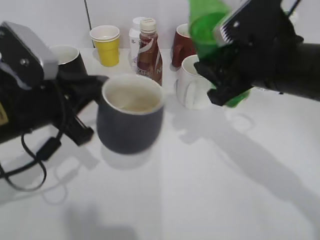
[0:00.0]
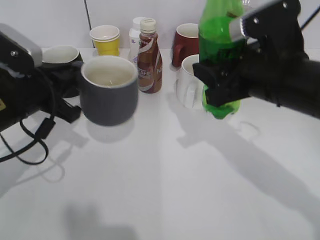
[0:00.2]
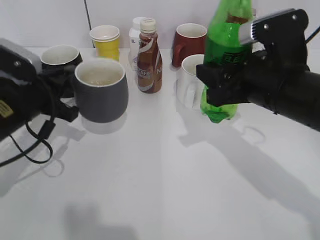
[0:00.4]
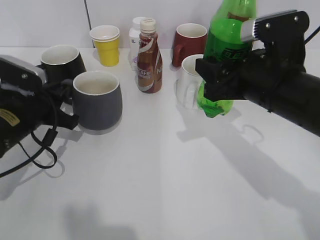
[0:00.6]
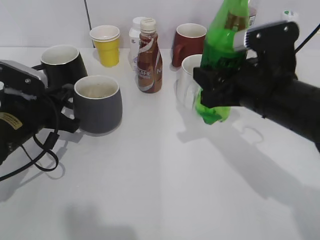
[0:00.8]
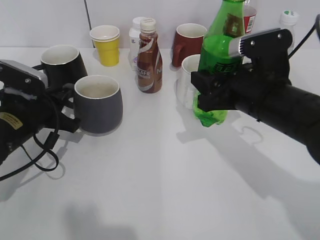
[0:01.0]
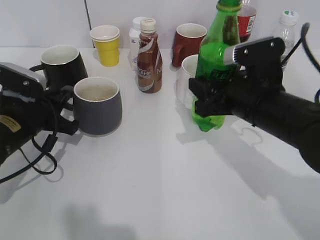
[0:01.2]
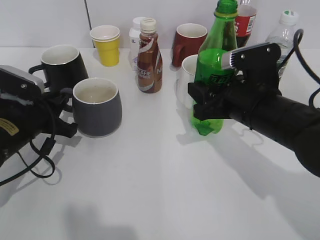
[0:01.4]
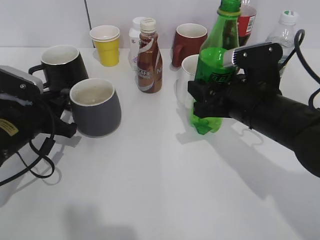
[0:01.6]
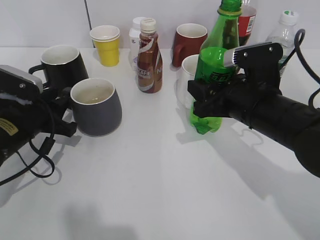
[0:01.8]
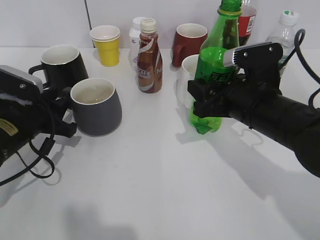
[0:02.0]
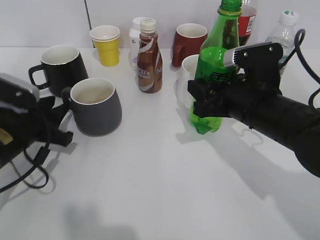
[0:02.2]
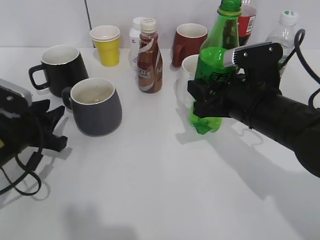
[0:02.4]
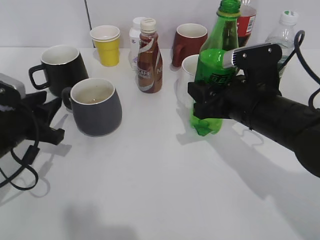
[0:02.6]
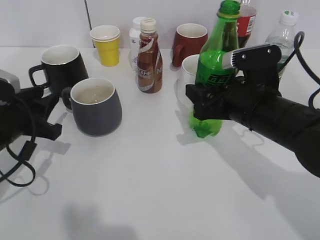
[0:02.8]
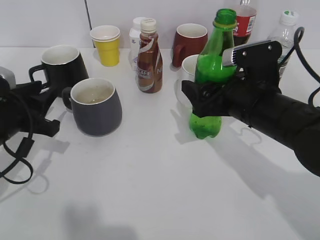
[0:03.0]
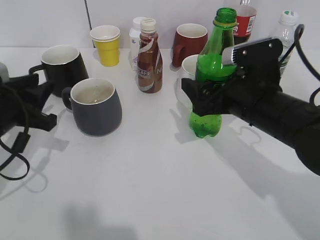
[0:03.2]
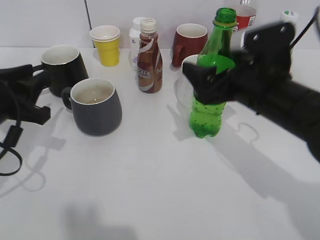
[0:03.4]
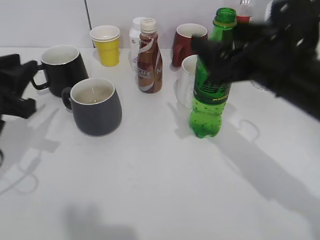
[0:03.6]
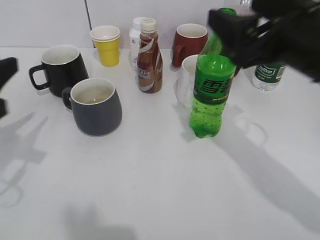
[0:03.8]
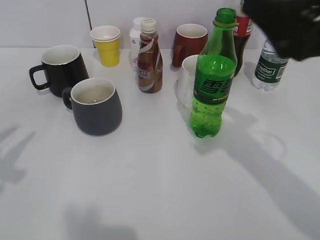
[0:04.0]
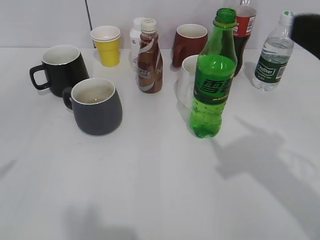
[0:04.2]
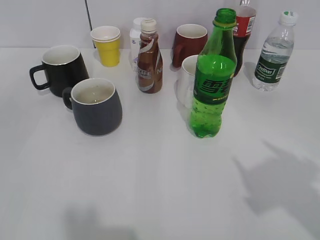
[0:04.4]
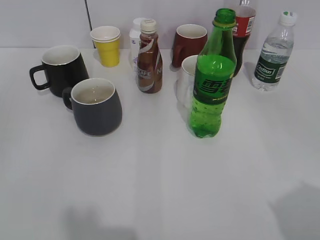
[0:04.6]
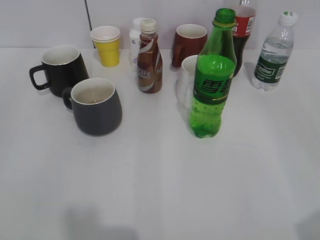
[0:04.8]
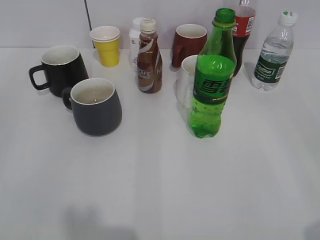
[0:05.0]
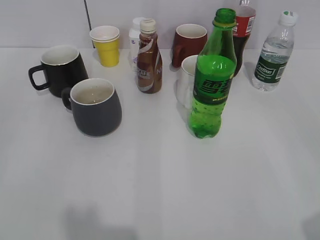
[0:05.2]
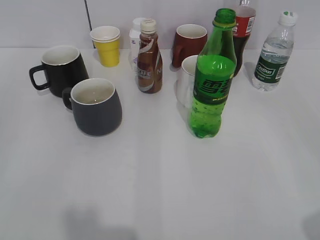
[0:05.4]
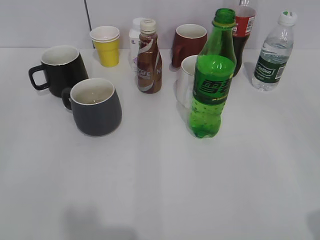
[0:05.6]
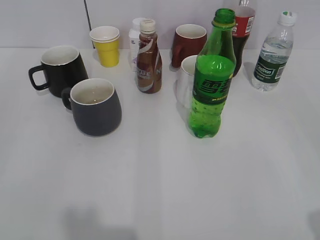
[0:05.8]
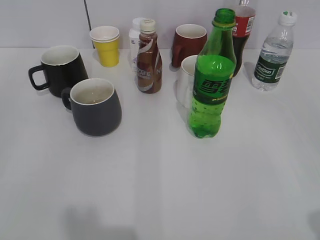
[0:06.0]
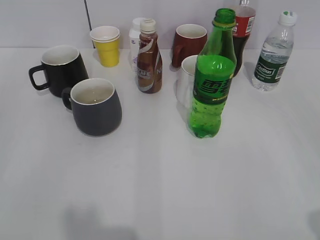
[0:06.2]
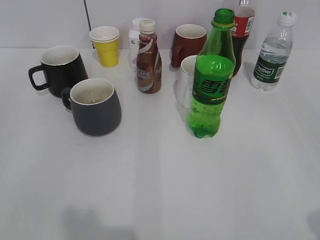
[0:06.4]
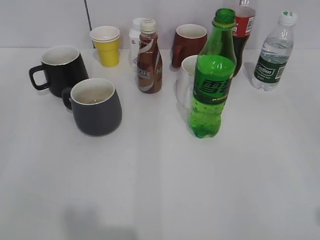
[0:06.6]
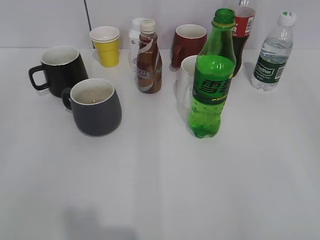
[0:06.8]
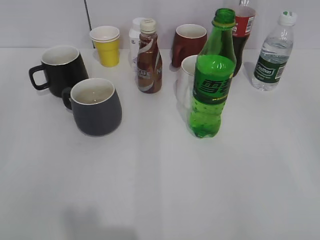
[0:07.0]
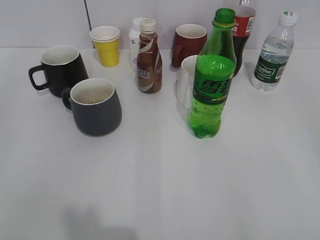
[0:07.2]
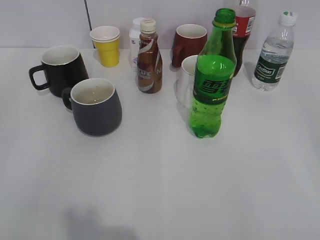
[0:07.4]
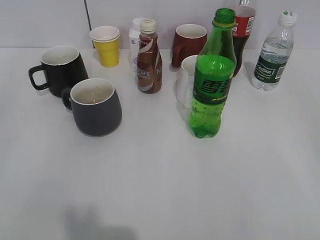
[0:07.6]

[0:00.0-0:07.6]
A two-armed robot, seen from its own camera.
Step, 0:00.0 to 0:02.0: Place the grey cup on the table with left gripper.
Step, 0:02.2 to 0:03.4: Place the sprite bottle on the table with right gripper.
0:00.0 to 0:01.6: The right gripper travels downward by approximately 10 cm, while the left gripper is displaced downward and forward by some 10 cm, and opens its fingers.
0:01.6 to 0:03.0: The right gripper opens its fingers.
0:03.0 to 0:04.6: The left gripper heads backward and upward, covering roughly 25 cm, while the right gripper shifts roughly 30 cm backward, to the right and upward.
0:04.6 to 0:06.0: The right gripper closes its fingers.

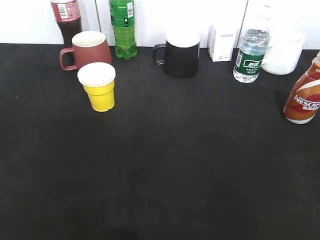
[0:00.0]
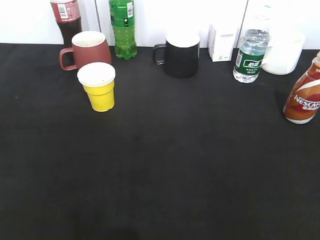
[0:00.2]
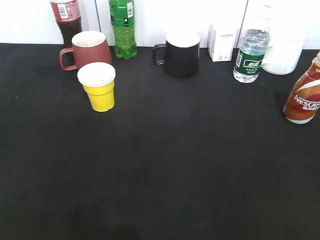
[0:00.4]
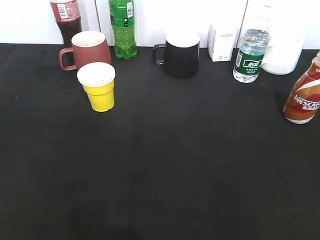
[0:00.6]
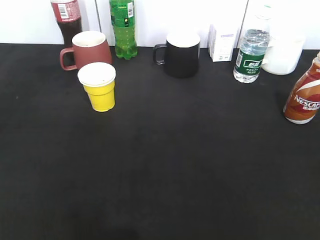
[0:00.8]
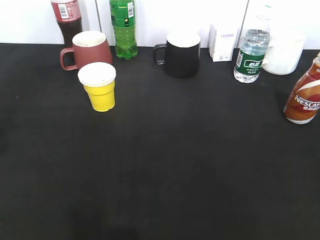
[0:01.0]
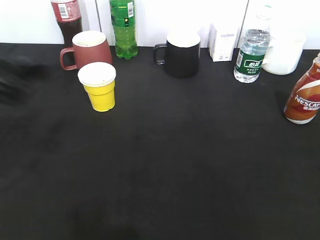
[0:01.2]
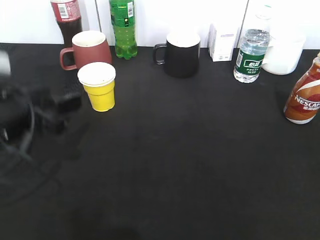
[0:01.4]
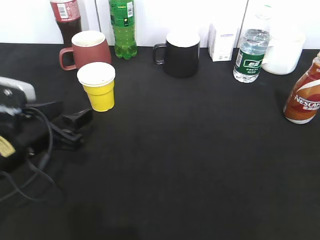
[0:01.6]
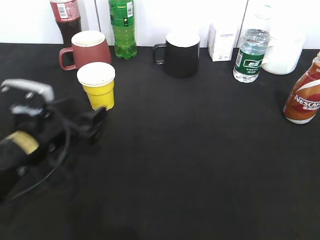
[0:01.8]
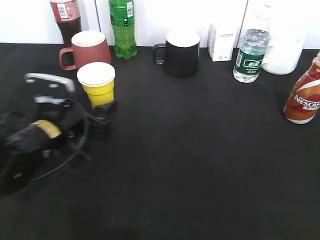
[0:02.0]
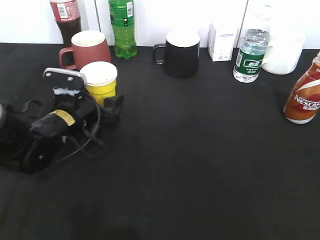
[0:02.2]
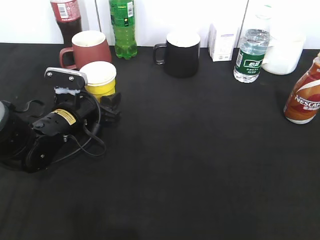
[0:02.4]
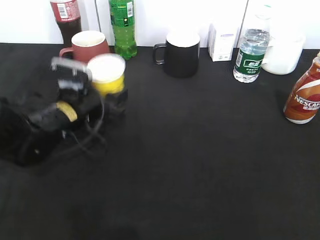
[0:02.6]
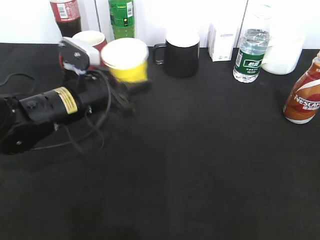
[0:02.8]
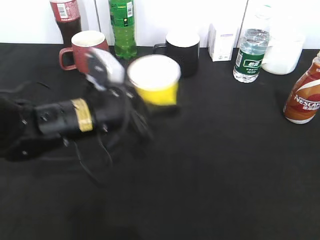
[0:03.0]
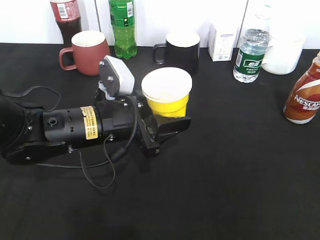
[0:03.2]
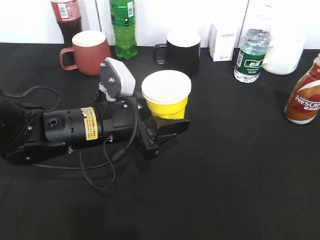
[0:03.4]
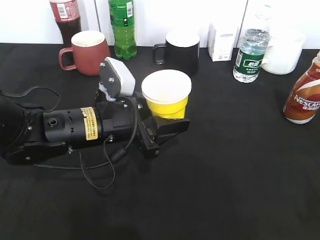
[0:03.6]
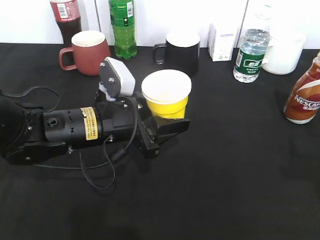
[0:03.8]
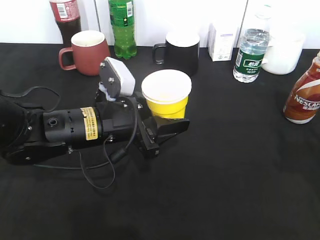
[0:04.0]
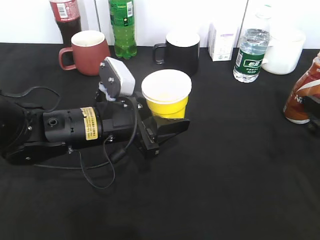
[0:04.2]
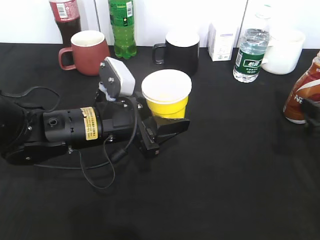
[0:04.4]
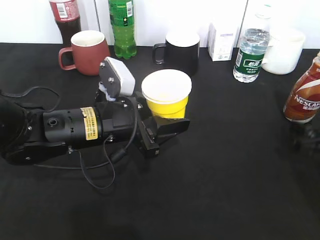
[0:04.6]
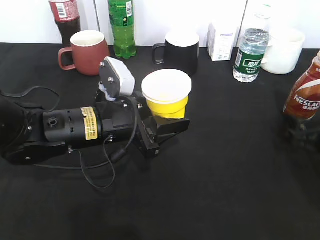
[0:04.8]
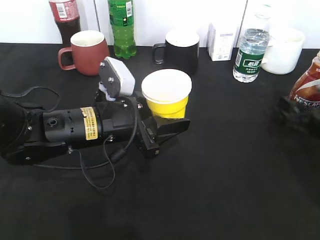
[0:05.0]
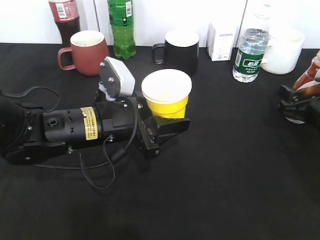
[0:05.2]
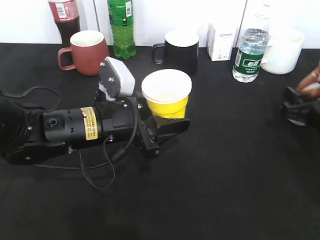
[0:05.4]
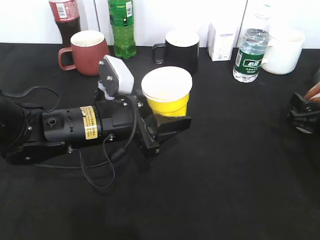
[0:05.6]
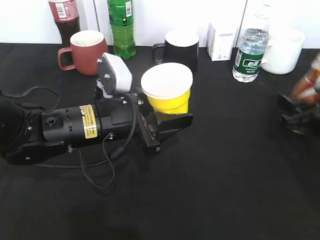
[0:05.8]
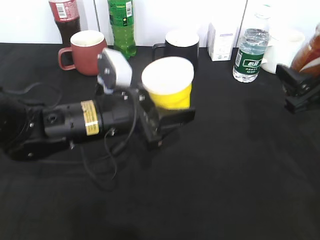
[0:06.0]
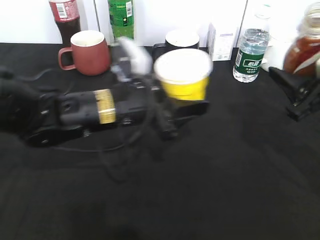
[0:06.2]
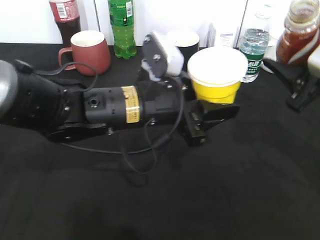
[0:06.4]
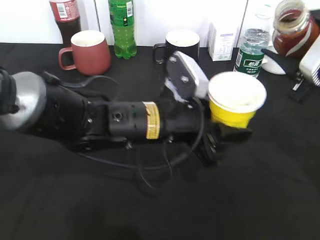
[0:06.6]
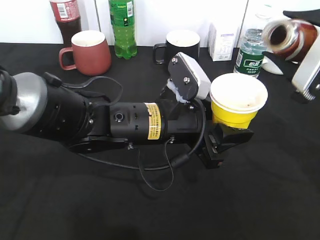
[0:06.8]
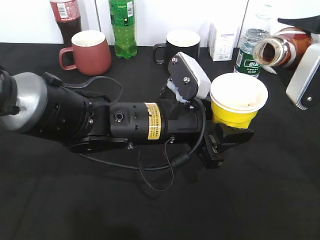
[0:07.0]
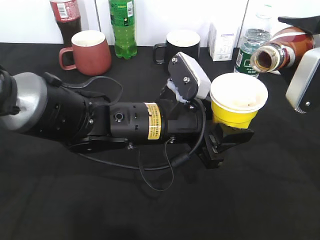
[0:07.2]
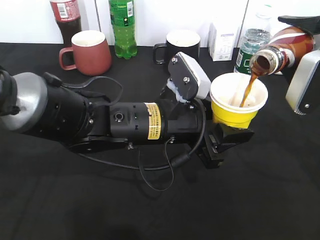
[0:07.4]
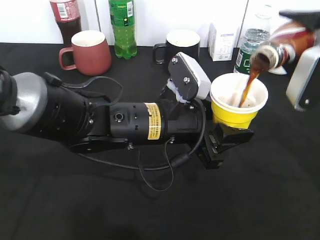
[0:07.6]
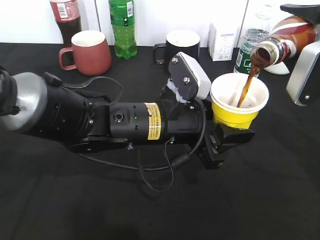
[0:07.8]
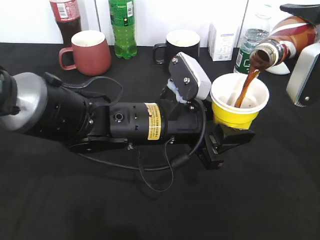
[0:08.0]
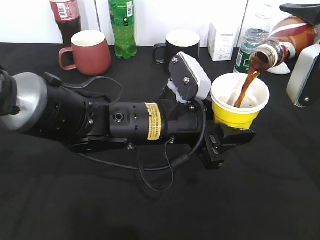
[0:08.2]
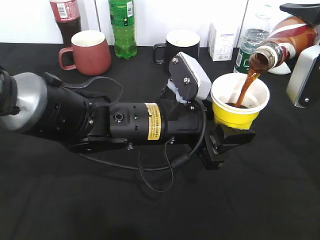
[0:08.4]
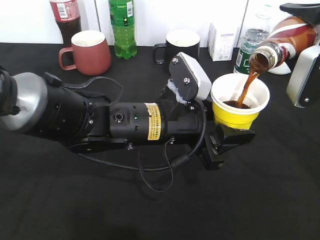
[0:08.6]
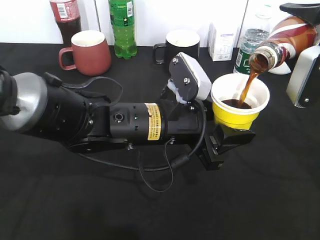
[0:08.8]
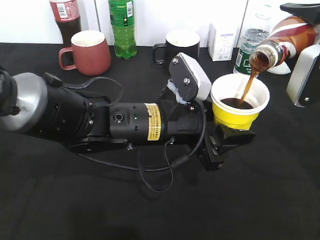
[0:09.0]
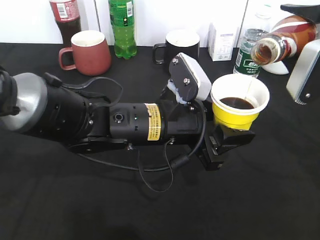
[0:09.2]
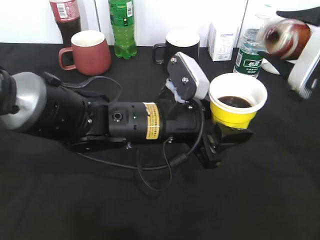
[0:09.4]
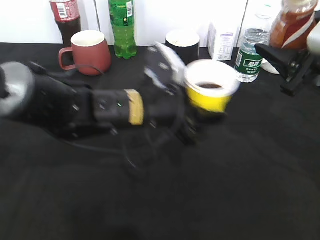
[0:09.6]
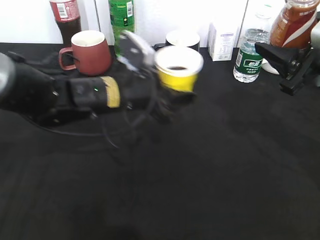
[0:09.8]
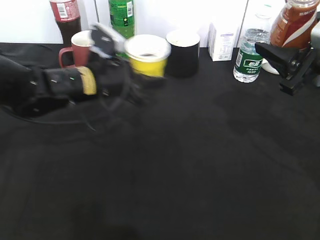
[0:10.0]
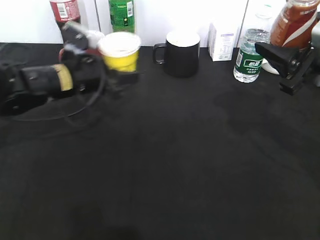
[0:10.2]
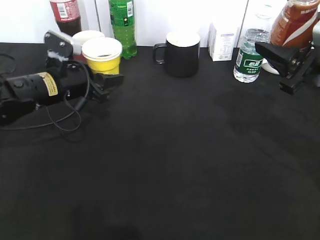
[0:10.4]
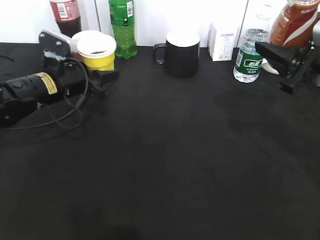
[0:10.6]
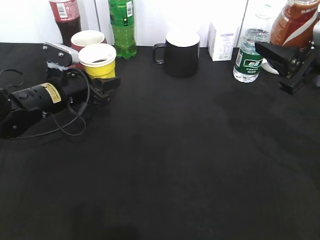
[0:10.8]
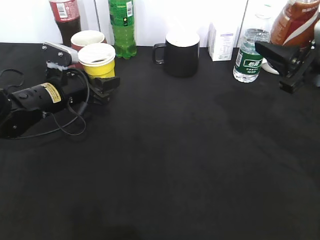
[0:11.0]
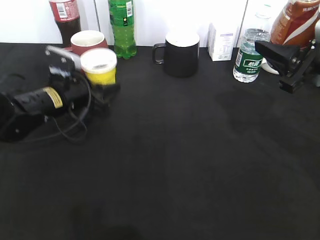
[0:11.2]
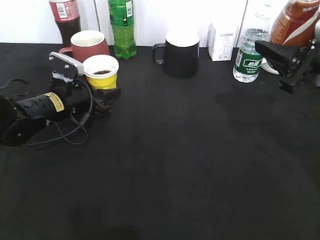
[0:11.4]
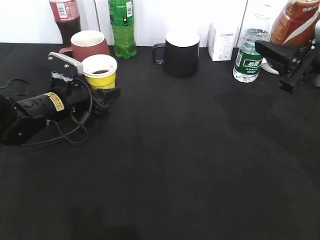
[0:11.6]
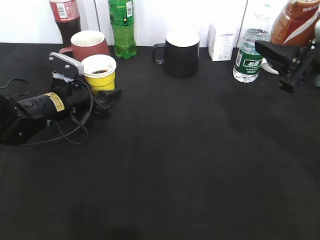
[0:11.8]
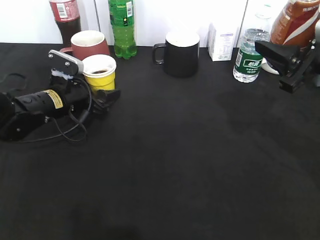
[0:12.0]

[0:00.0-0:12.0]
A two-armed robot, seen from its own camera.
Step, 0:01.2 to 0:02.4: Grasp the yellow paper cup with left gripper.
Step, 0:02.6 to 0:03.8: Lift the yellow paper cup with left gripper.
Step, 0:04.2 to 0:05.6: Grasp the bottle with coffee with right gripper.
Step, 0:05.8 to 0:09.2: Pour the coffee from bottle to cup with right gripper.
Step, 0:09.6 to 0:11.8: Place the yellow paper cup on the table with left gripper.
0:00.0 to 0:01.6: The left gripper heads forward, downward and to the right, covering approximately 30 cm, and opens.
0:01.6 to 0:03.0: The left gripper heads to the right, covering roughly 10 cm.
0:03.0 to 0:04.4: The right gripper goes about 25 cm forward and downward, and opens its fingers.
0:04.4 to 0:06.0: The right gripper shifts by roughly 5 cm, and closes up.
0:06.0 to 0:07.6: The left gripper shifts approximately 10 cm to the right. Meanwhile the right gripper moves upward, roughly 5 cm.
0:07.6 to 0:09.0: The grippers stay close to where they were, moving slightly.
0:09.0 to 0:10.4: The left gripper travels to the left and forward by about 20 cm.
0:10.4 to 0:12.0: The left gripper opens up.

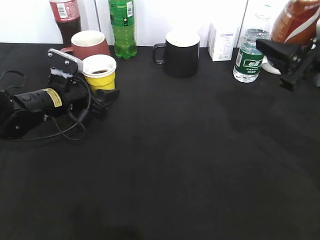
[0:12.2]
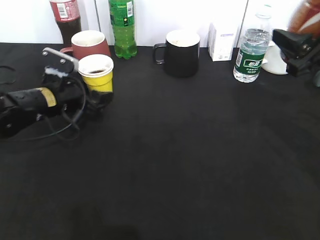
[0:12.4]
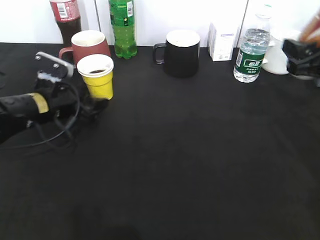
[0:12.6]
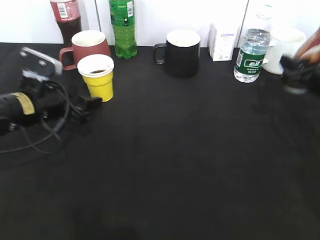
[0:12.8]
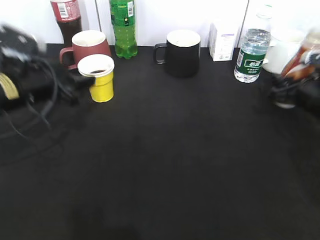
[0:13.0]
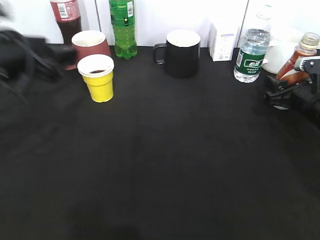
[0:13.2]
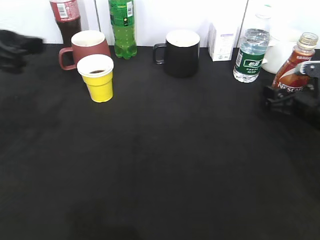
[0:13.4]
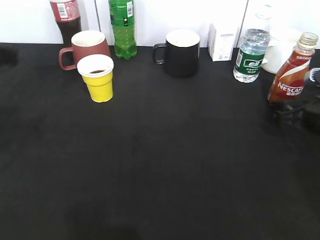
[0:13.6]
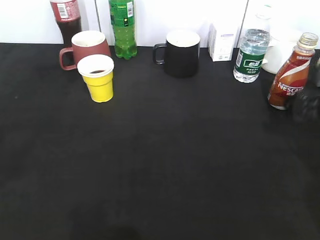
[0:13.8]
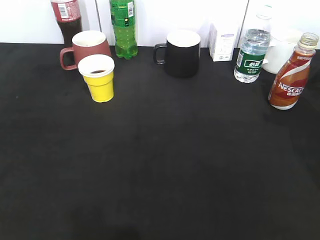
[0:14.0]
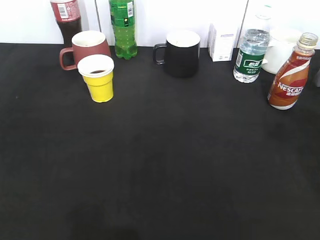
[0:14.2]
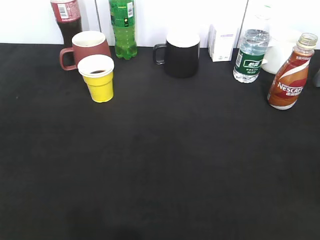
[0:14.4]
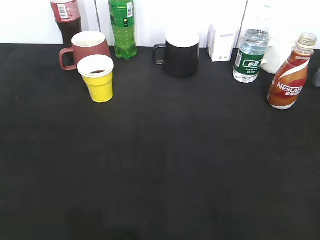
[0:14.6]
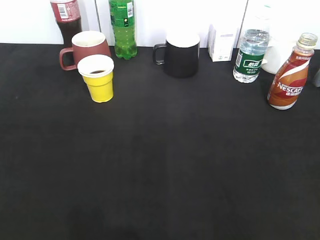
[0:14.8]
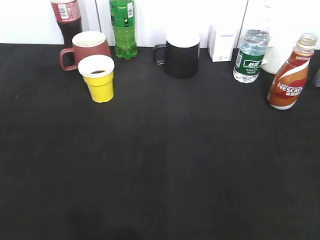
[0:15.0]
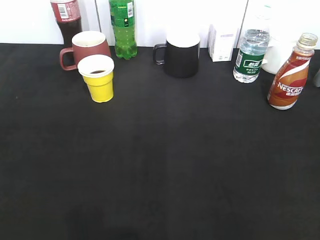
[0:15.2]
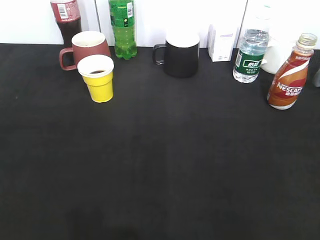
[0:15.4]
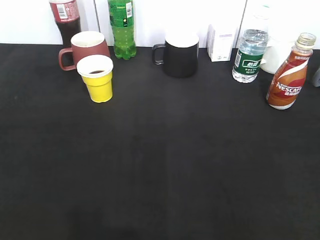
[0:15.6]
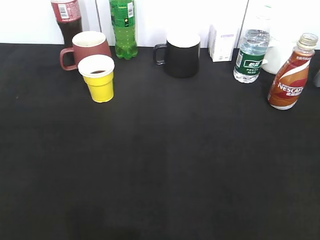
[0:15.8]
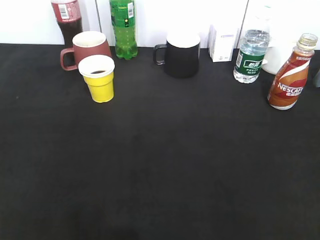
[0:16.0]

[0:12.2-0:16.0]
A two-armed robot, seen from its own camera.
Step, 0:12.2 to 0:13.2: Place the coffee bottle on the table with right gripper.
0:12.2 to 0:13.4: The right gripper heads downward, covering some 15 cm, and opens; the left gripper is displaced upward and backward by approximately 20 cm.
0:13.4 to 0:14.8: The left gripper shifts some 20 cm backward. The right gripper is displaced backward and upward by about 35 cm.
